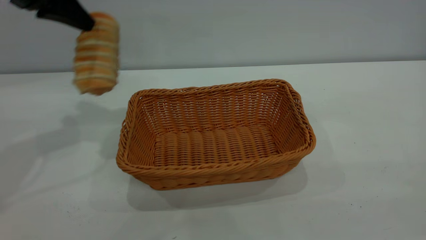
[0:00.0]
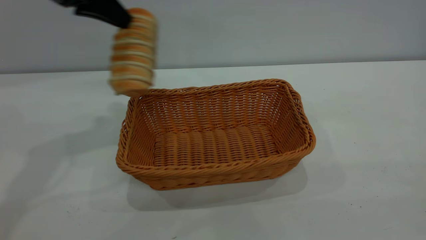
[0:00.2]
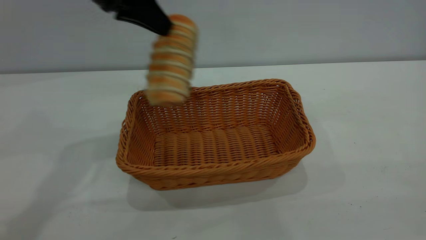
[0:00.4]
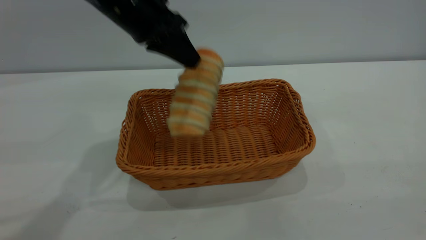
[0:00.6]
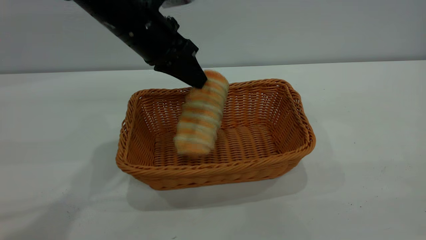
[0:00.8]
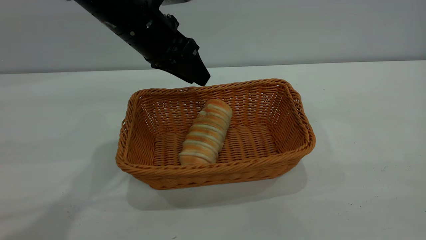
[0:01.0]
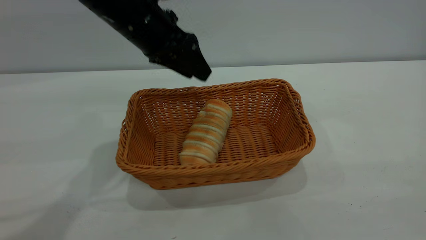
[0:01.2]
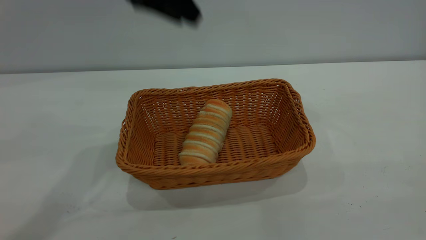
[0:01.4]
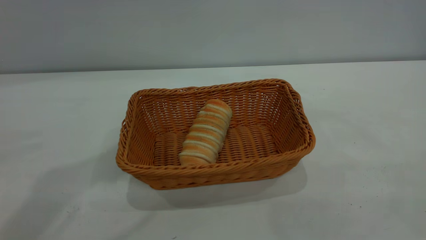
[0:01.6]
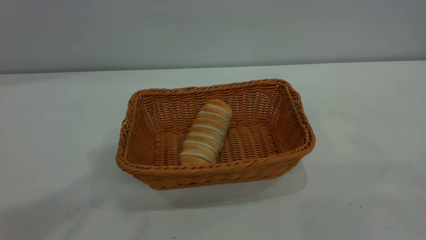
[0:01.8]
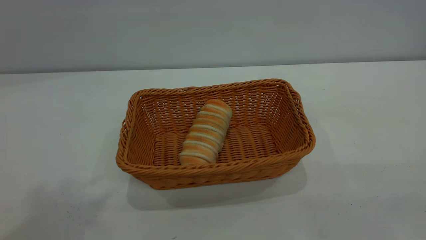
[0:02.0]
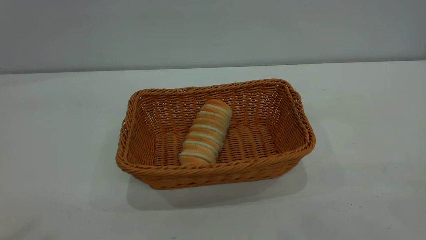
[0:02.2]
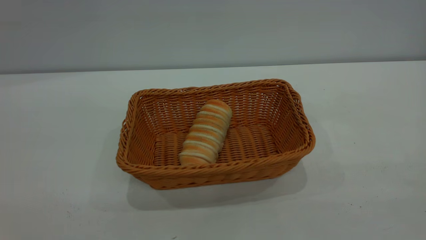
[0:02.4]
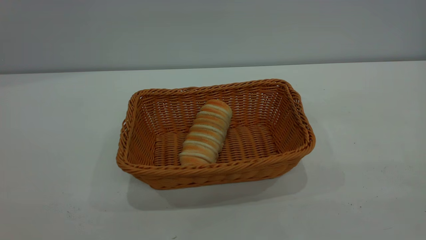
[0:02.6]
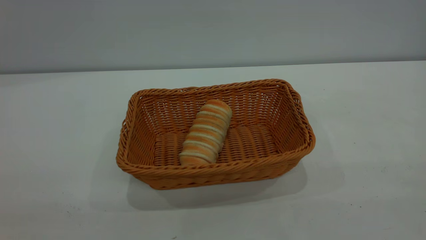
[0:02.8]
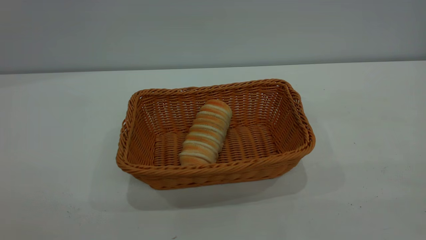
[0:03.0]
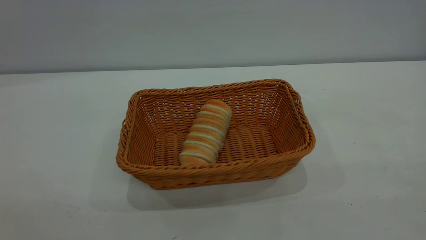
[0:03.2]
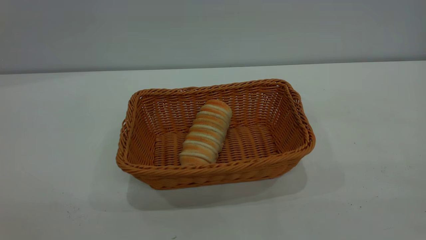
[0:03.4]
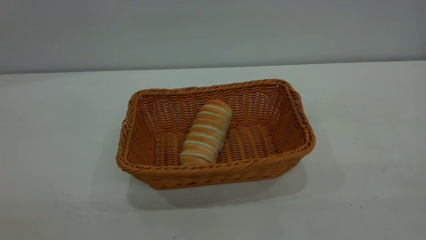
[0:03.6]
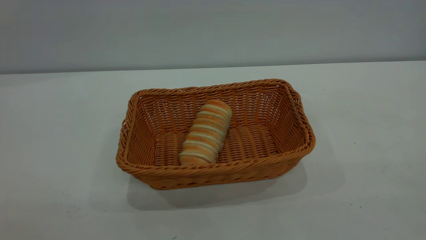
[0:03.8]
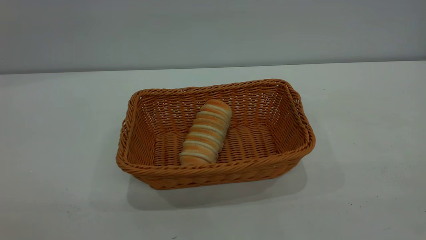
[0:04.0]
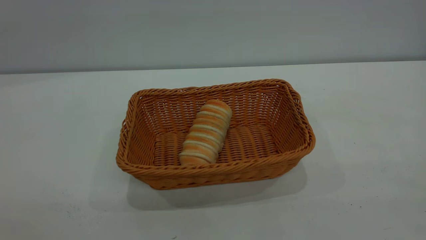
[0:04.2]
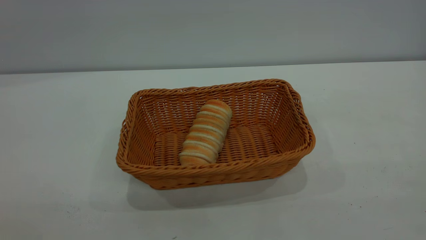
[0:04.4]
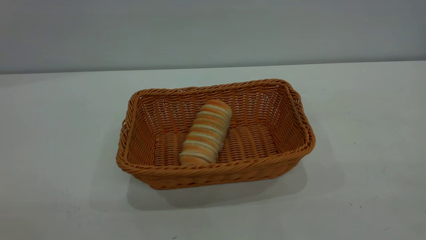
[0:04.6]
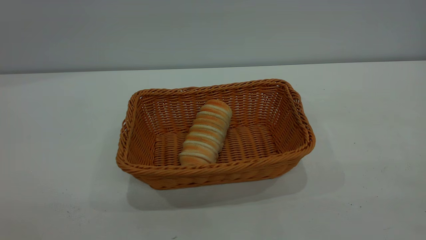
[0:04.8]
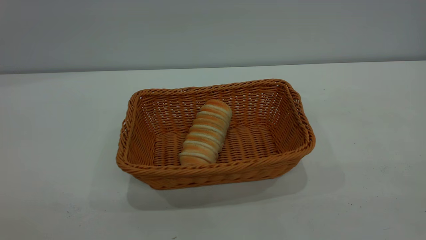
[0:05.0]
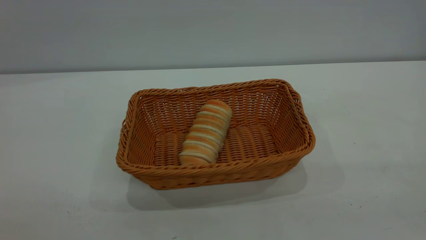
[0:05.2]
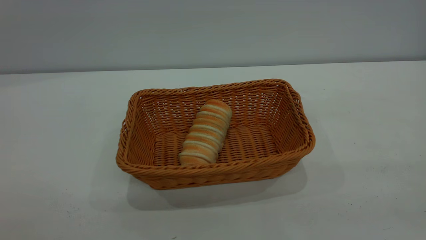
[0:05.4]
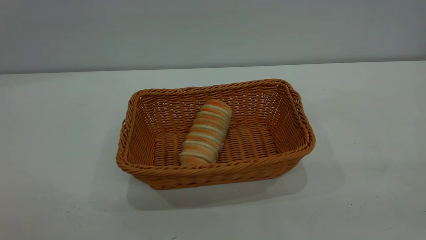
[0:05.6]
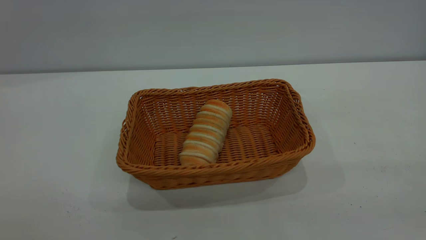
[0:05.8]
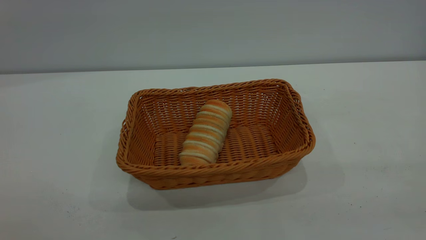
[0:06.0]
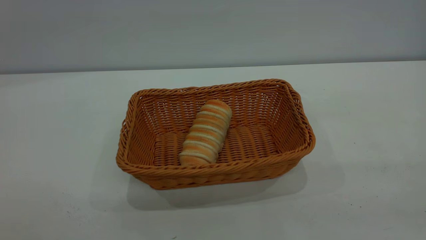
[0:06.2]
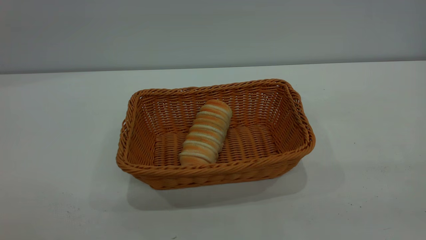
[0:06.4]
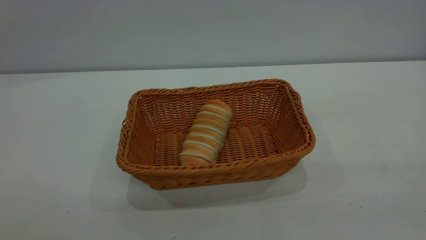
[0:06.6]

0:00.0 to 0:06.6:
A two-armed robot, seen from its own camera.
Task of the whole recording: One hand grasps the yellow basket and places it in the middle of the table, while the other hand picks up the long bread and puts it into the yellow basket.
Step, 0:00.0 to 0:01.2: place the bread into the basket.
0:00.0 to 0:01.6: The left gripper goes about 20 cm upward, to the right and backward, and opens.
